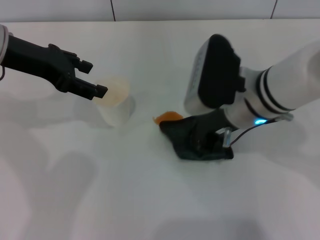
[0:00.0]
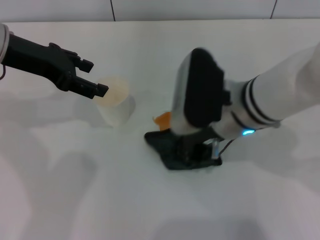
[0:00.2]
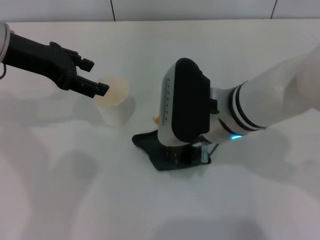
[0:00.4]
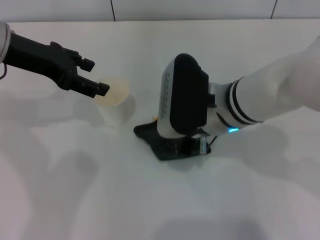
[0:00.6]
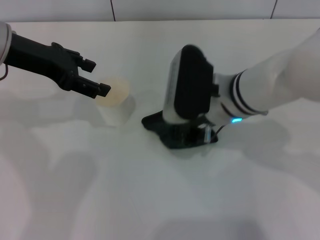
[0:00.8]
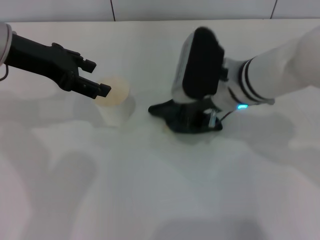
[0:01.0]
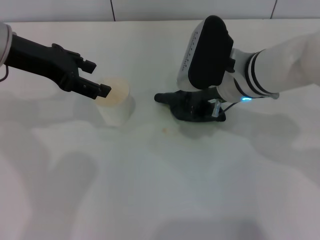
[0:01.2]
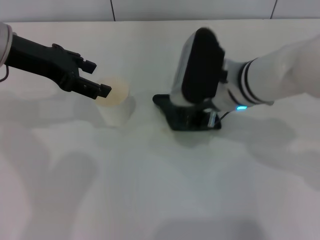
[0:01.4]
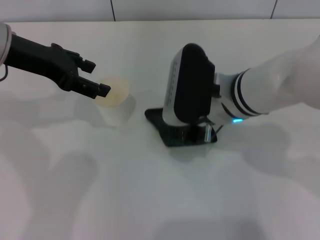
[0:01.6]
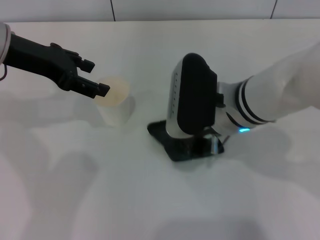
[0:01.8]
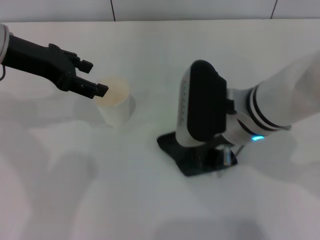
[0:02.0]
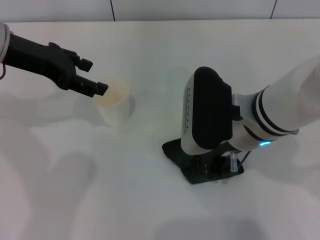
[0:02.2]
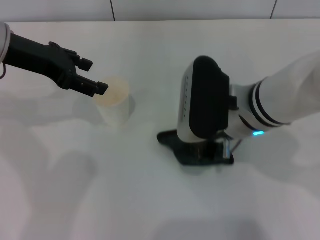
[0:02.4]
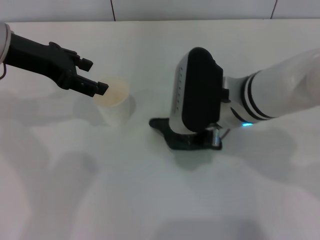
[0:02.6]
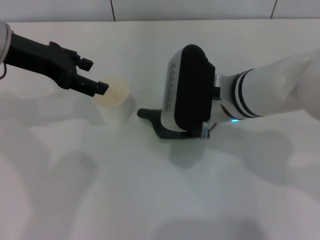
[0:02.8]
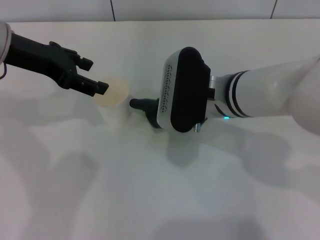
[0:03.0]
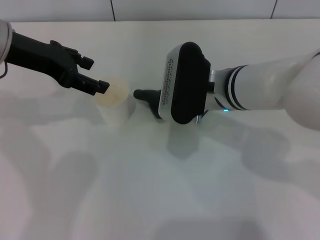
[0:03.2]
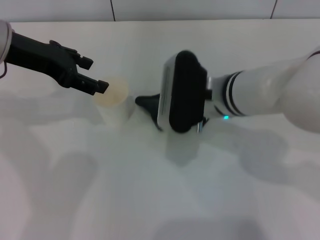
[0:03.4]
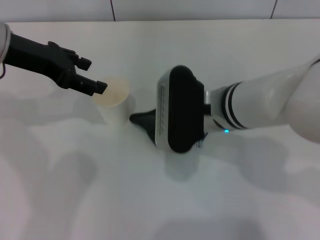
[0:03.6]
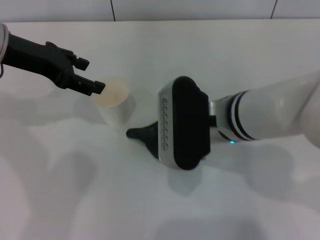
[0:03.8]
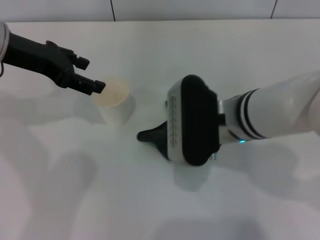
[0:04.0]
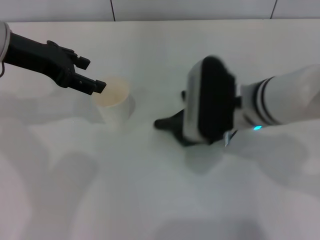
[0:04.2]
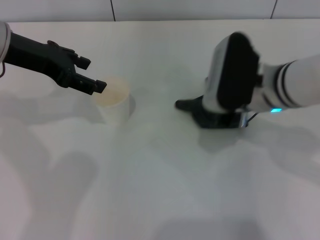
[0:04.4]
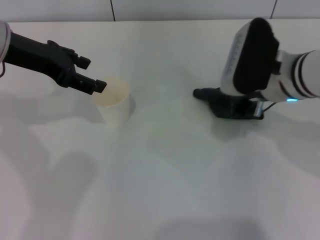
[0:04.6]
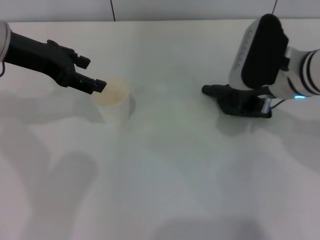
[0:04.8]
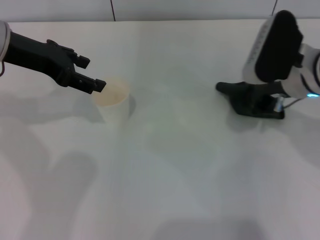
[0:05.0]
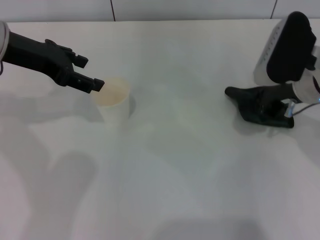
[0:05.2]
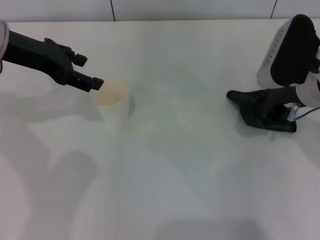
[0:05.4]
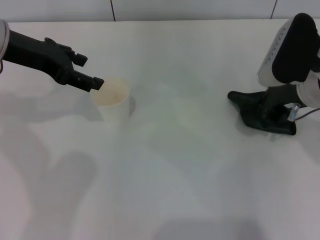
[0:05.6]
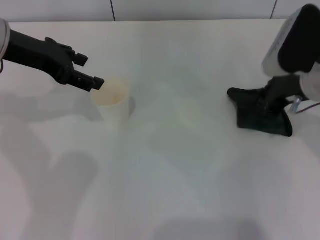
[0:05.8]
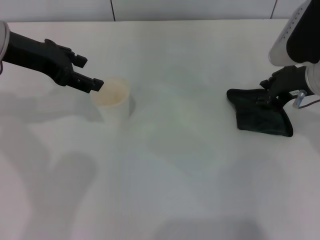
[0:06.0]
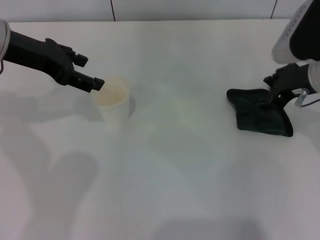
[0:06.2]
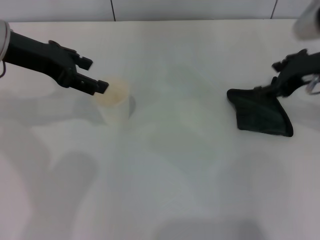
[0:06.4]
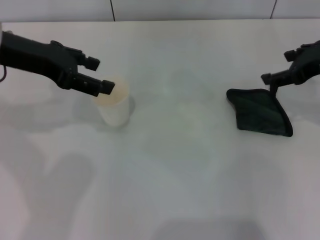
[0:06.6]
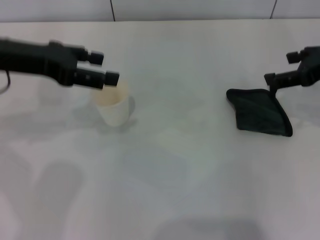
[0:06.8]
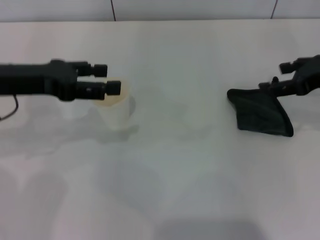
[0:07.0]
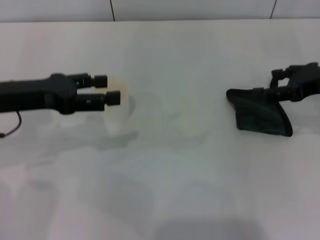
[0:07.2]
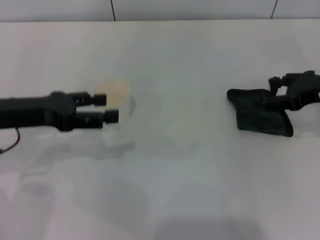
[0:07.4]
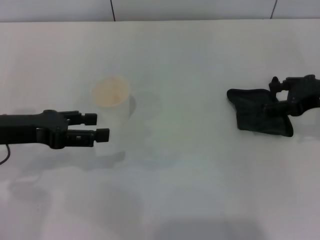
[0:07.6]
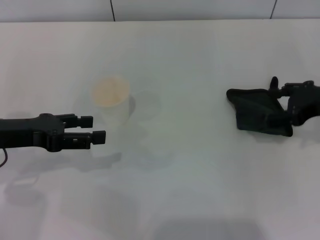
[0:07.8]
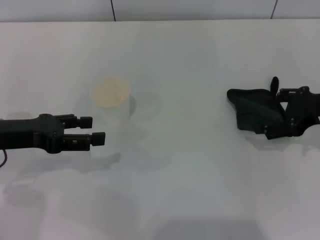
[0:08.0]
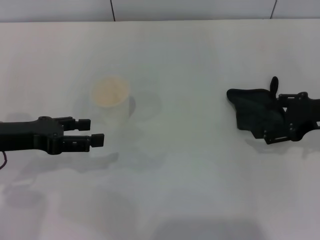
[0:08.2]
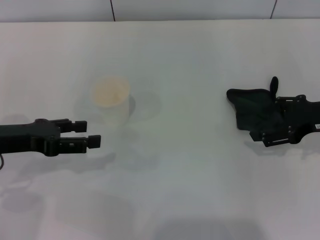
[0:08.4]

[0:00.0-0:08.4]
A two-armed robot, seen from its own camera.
Step, 0:00.0 to 0:04.6: Wipe the stains off the table with the right gripper.
Step, 0:04.8 to 0:06.6: Place the rag on the table with the right gripper.
0:00.0 to 0:02.8: The grippers move only a little.
0:02.8 to 0:04.2: There are only small adjustments of the grippers.
0:04.2 to 0:05.6: The right gripper heads to the right, covering some 10 cm.
0:05.6 to 0:07.0: The right gripper goes some 10 cm to the right, and opens its fingers. The left gripper shifts roughly 5 cm backward.
0:07.0 to 0:08.4: The grippers both shift downward by approximately 5 cm.
